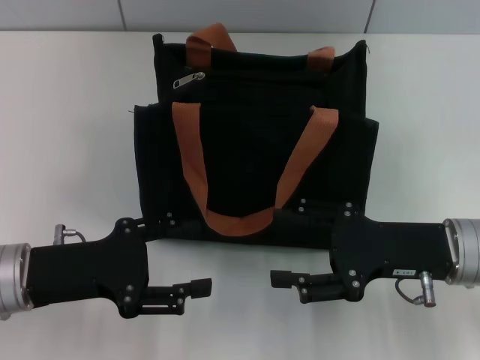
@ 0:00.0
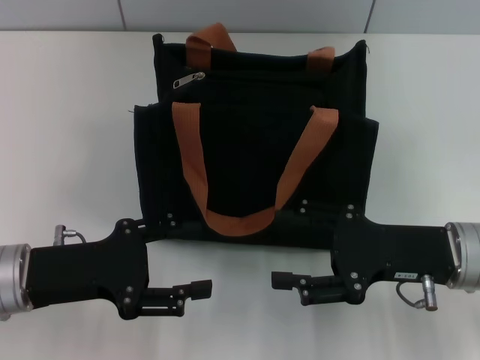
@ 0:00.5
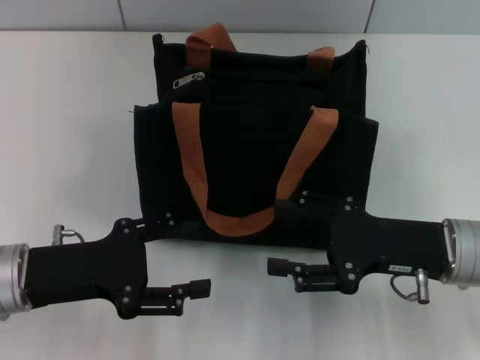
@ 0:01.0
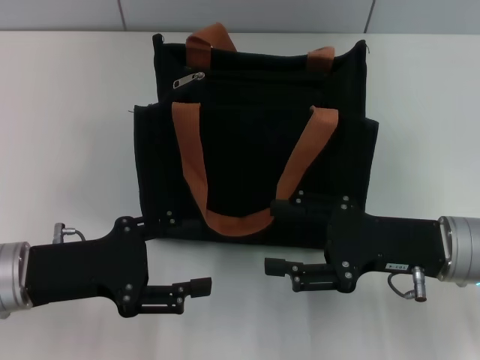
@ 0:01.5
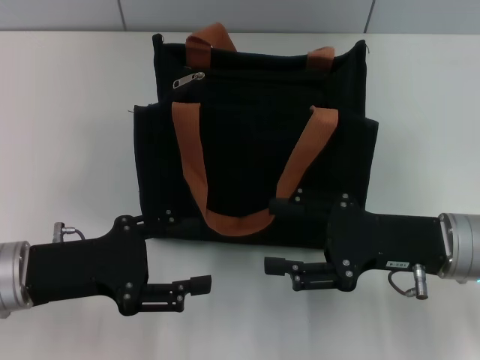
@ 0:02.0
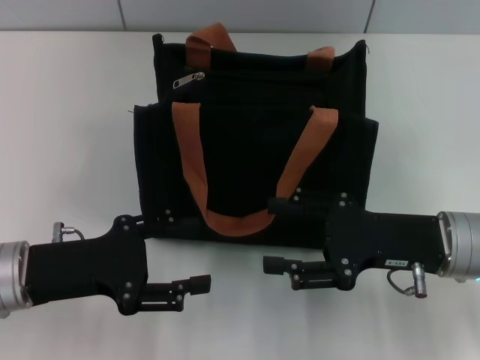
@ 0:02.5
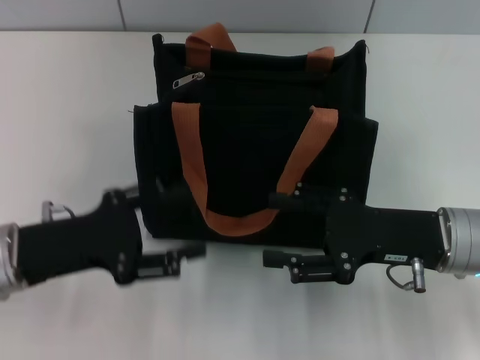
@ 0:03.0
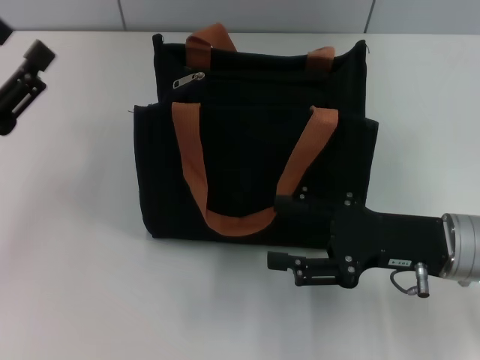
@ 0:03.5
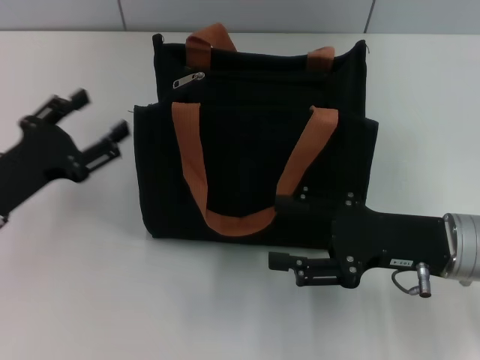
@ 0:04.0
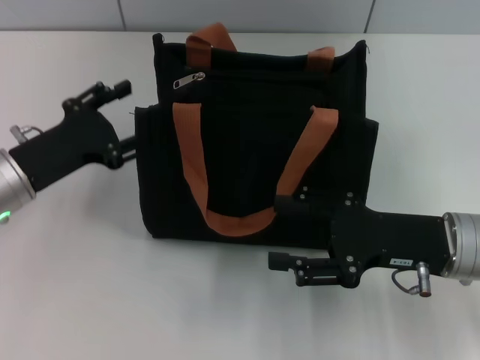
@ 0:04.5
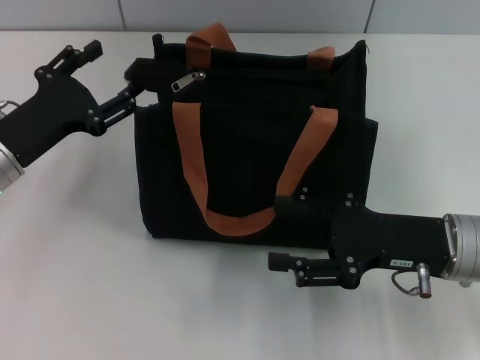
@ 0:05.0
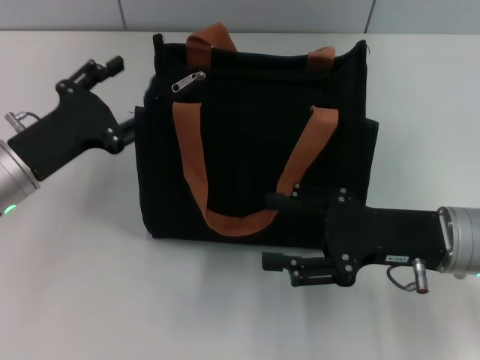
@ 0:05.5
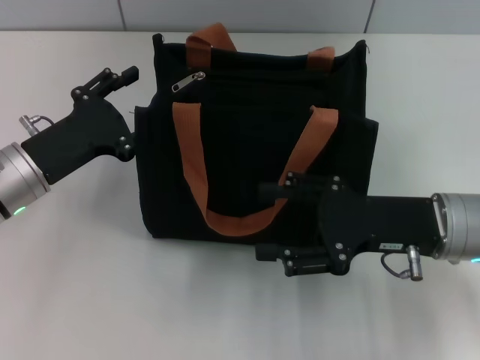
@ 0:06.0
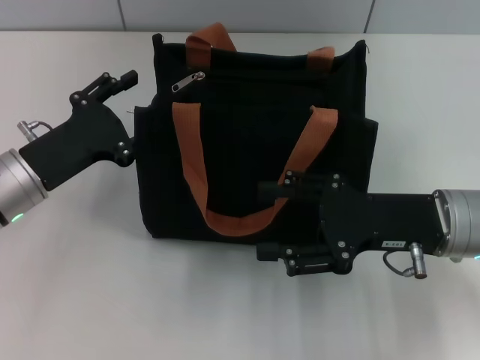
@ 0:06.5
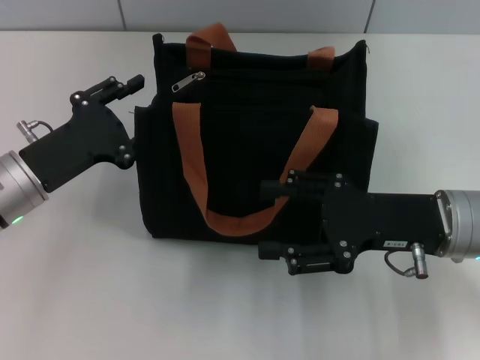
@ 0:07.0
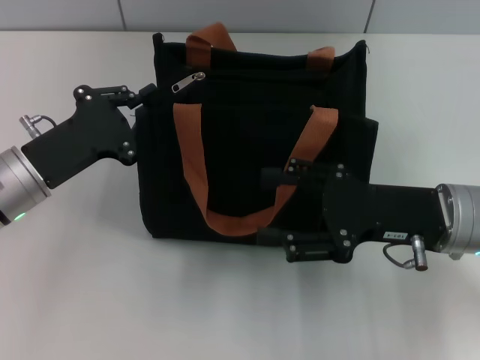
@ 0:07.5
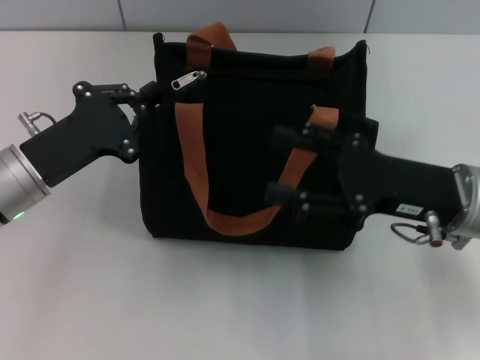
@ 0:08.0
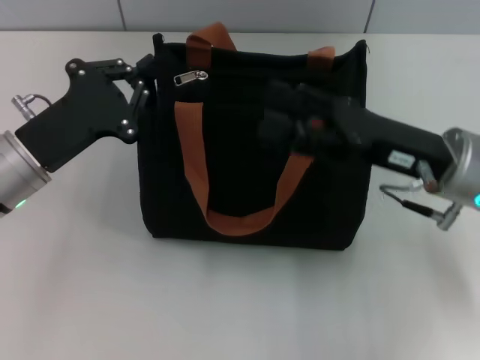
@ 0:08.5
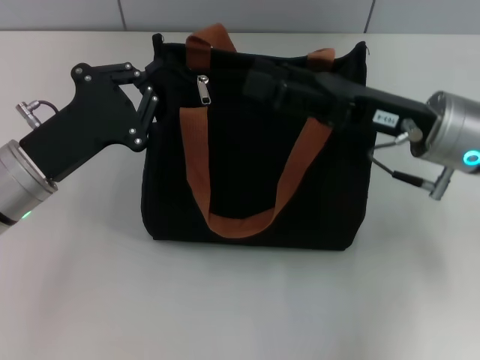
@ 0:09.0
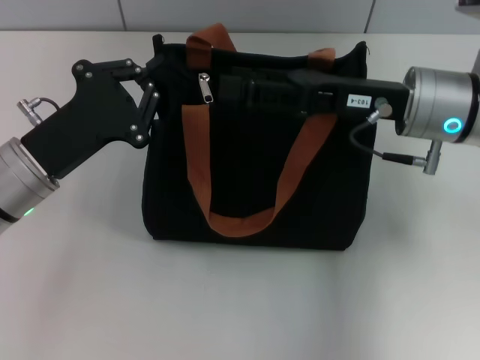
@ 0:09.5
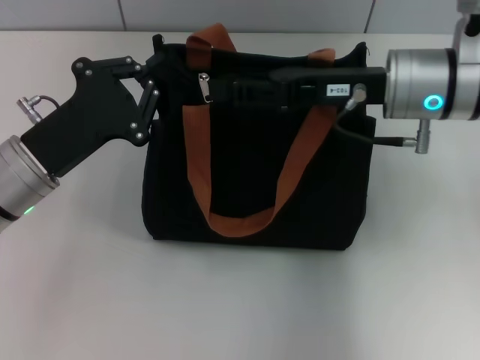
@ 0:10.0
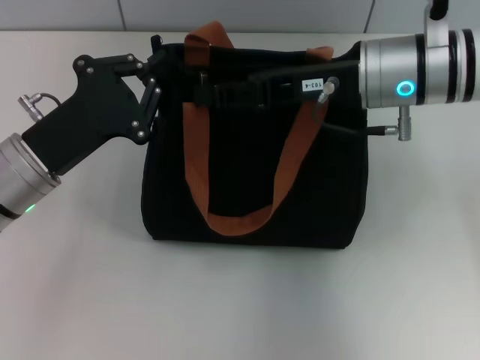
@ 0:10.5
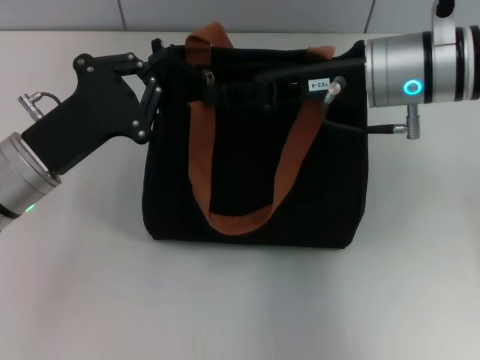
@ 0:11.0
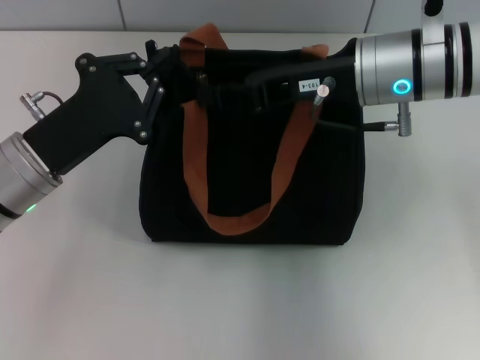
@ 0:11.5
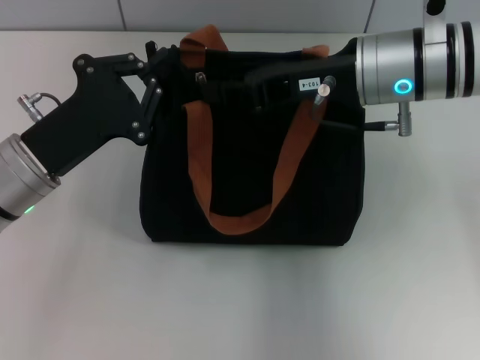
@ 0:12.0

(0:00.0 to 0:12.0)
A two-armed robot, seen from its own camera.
0:00.0 - 0:02.0: Both grippers stay put.
0:02.0 - 0:04.0: The left gripper is displaced to the left by some 5 cm.
0:04.0 - 0:06.0: The left gripper moves about 5 cm.
0:06.0 - 0:08.0: The left gripper closes its fingers.
0:08.0 - 0:10.0: The right gripper is displaced forward, upward and to the left by roughly 10 cm, and closes.
0:10.0 - 0:12.0: The right gripper closes.

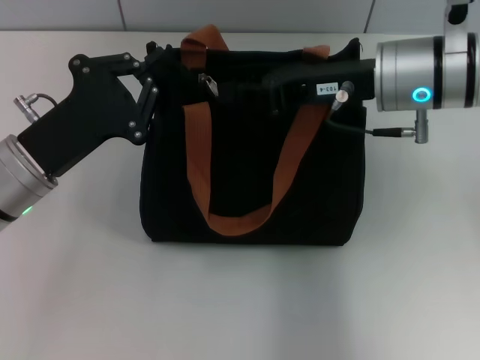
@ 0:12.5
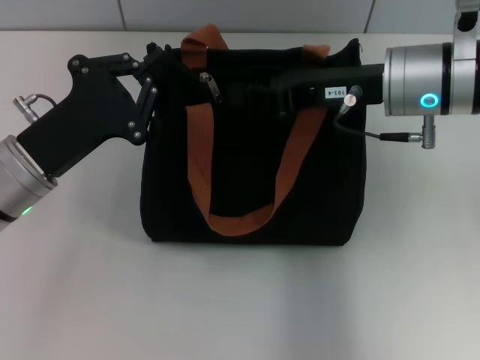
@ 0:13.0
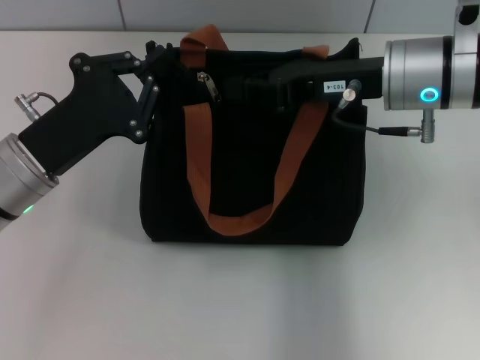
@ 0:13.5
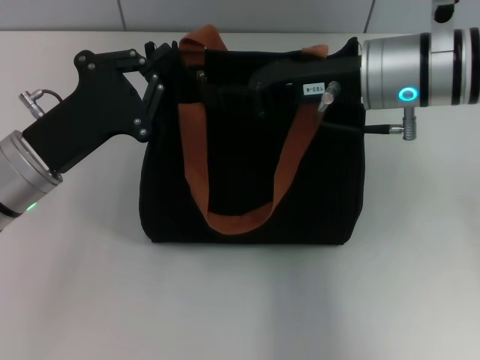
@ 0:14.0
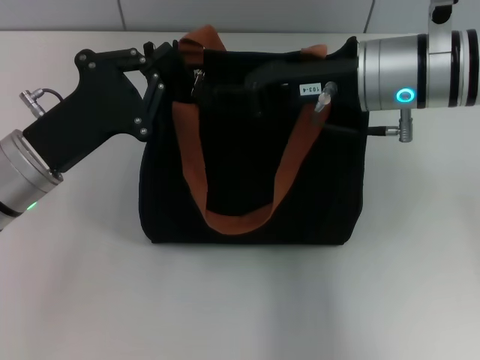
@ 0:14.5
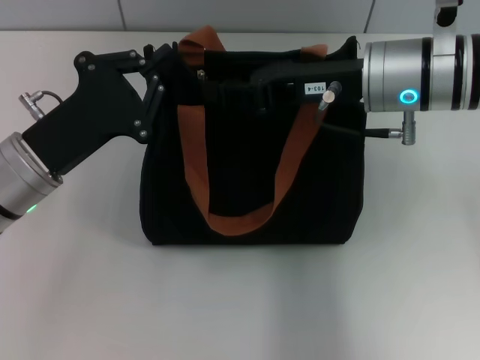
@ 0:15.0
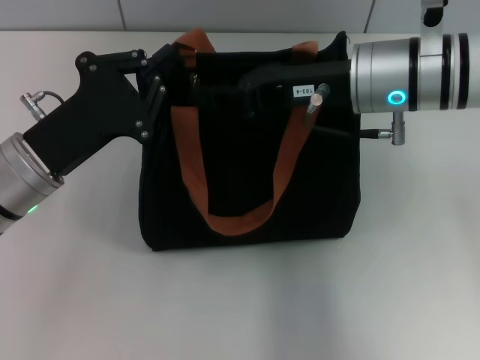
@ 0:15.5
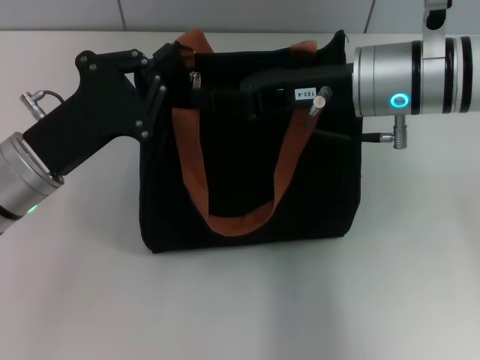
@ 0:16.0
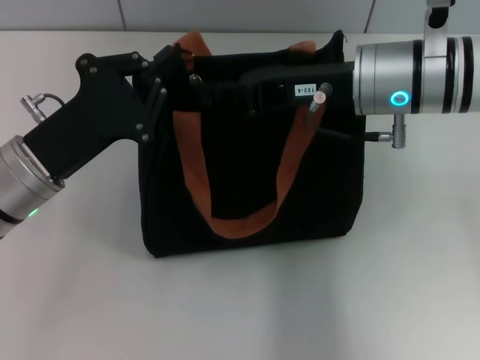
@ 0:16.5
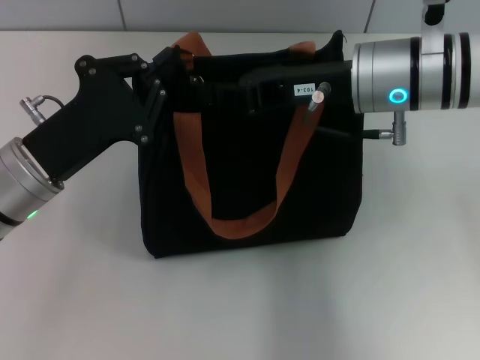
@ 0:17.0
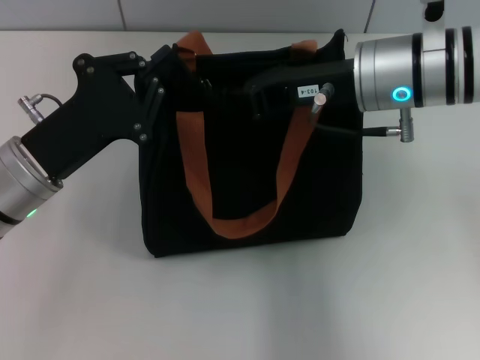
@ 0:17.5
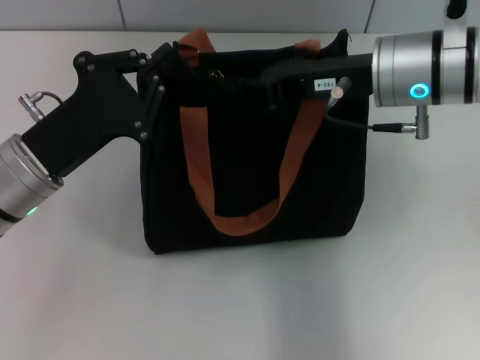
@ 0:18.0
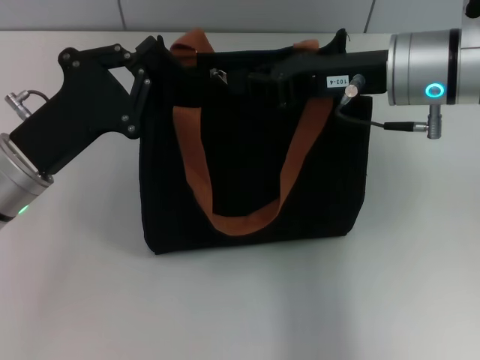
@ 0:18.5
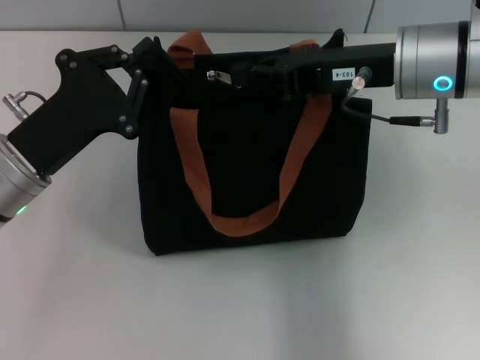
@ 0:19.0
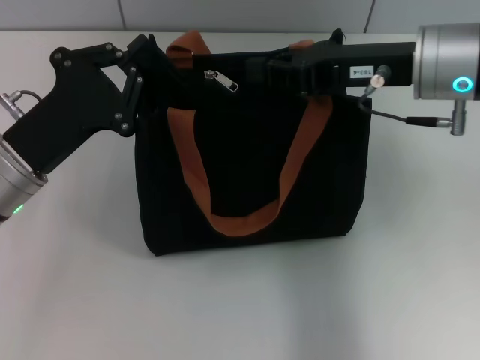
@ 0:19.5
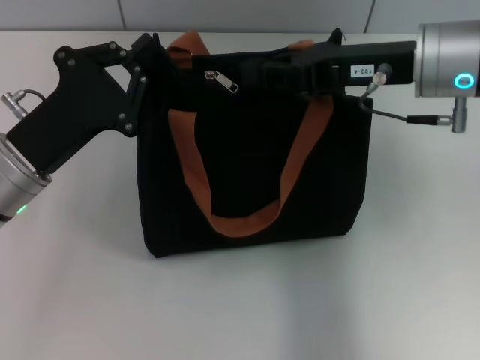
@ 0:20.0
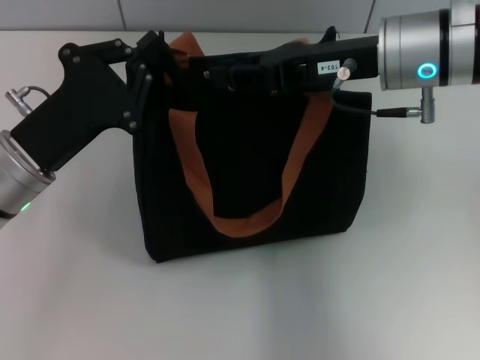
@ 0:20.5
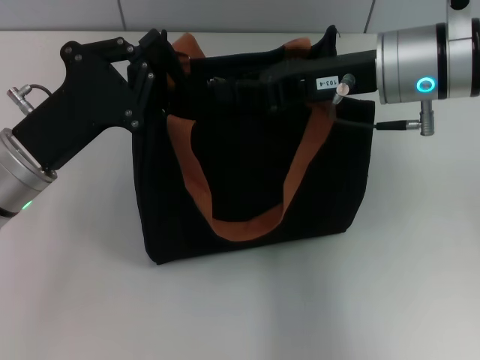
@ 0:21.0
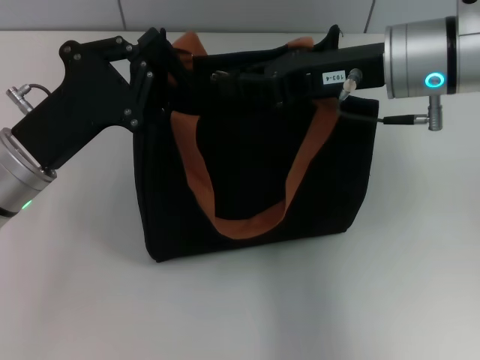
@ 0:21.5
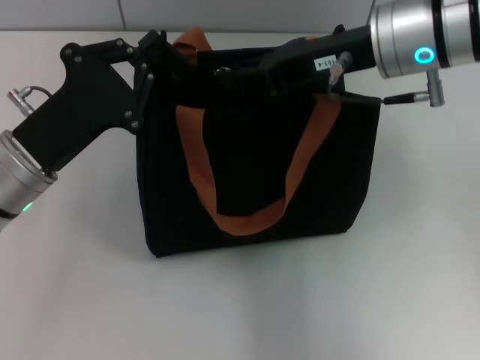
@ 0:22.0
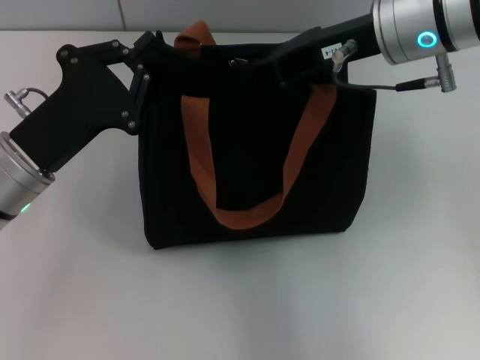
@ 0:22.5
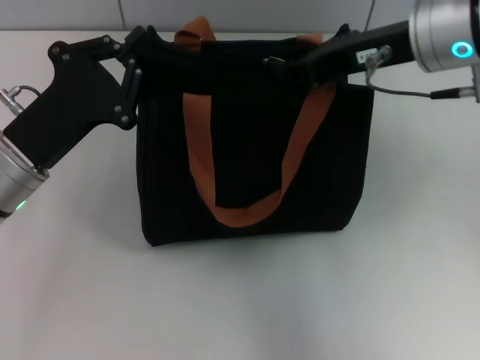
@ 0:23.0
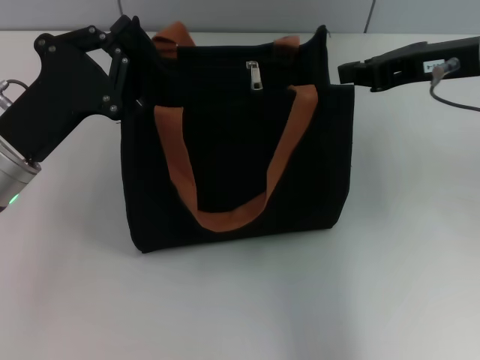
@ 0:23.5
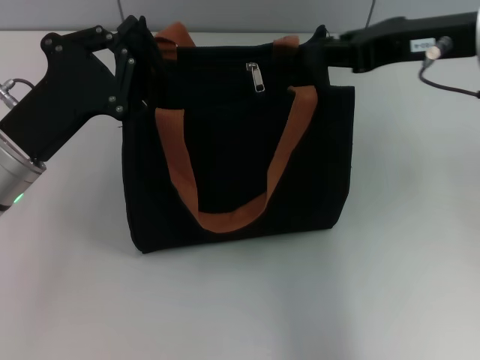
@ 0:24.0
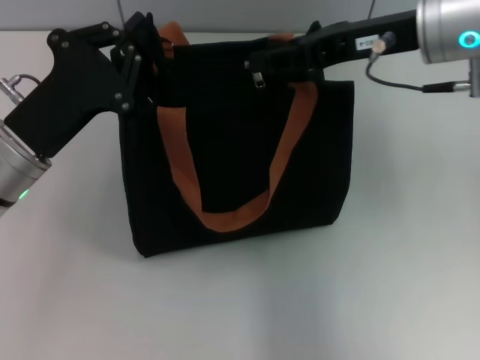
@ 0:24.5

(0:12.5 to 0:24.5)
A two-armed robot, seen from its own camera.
0:12.5 - 0:14.5: The grippers move only a little.
0:14.5 - 0:16.5: Neither gripper changes place.
0:16.5 - 0:20.5: The grippers move only a little.
0:20.5 - 0:22.5: There are only small adjustments of the grippers.
0:22.5 - 0:24.5: The right gripper moves some 10 cm to the right and comes back, and opens.

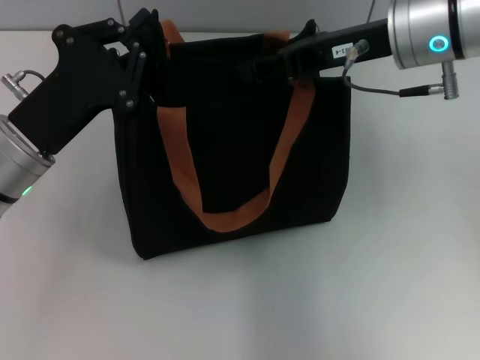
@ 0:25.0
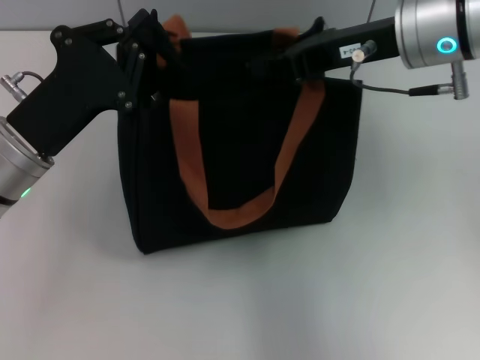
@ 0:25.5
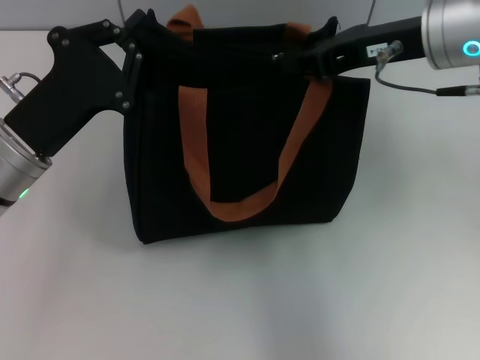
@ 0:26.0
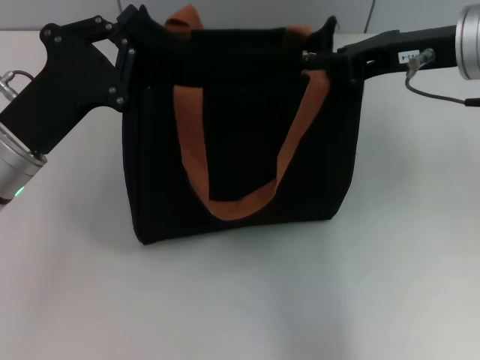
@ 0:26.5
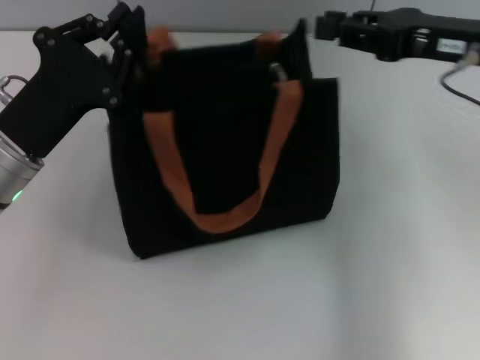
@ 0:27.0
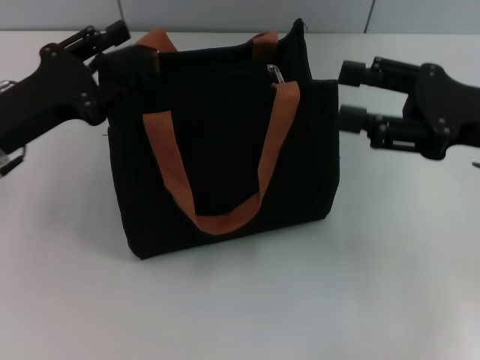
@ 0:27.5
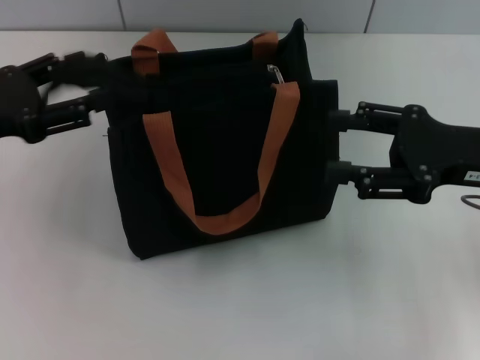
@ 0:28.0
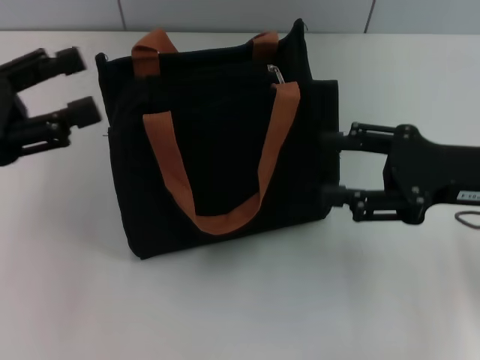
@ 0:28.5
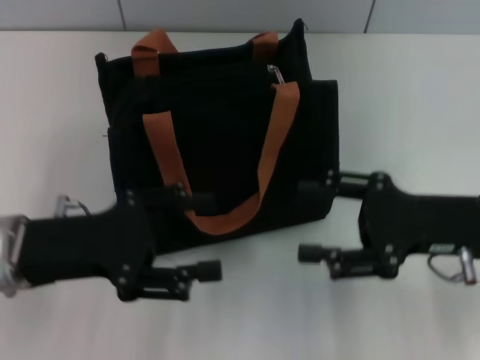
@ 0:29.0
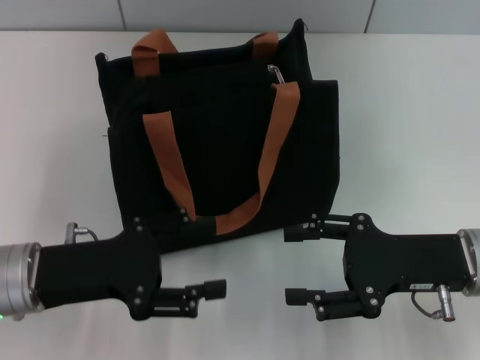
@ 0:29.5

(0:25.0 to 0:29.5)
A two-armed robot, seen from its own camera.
Step, 0:27.0 - 0:28.0: Grab the zipper with your left hand.
0:25.0 - 0:27.0: The right gripper travels to the right by approximately 10 cm.
0:27.0 - 0:29.5: The left gripper shifts some 5 cm backward, travels upward and back again, roughly 5 cm each way, and opens its fingers, while the right gripper goes about 15 cm downward and backward, and opens its fingers.
